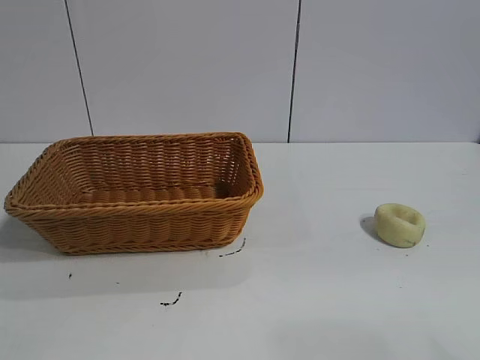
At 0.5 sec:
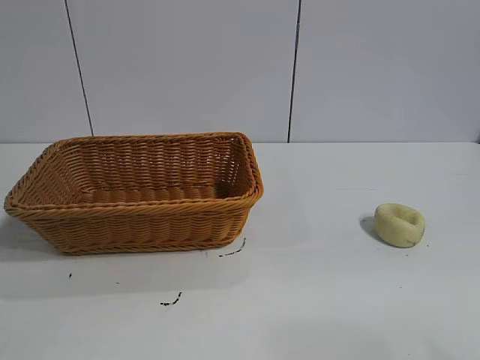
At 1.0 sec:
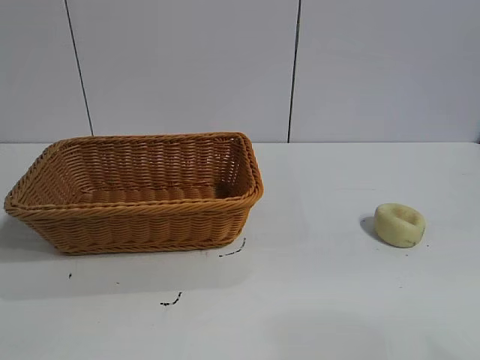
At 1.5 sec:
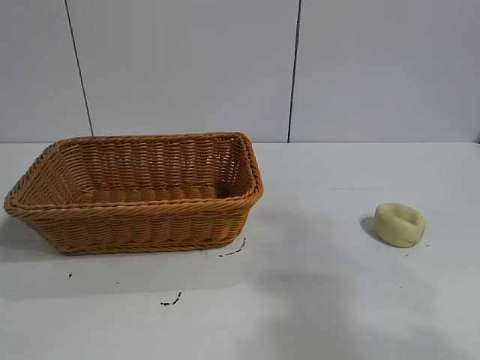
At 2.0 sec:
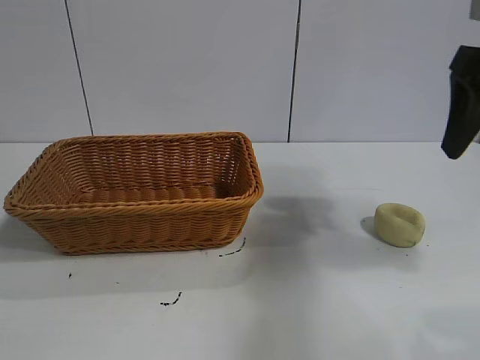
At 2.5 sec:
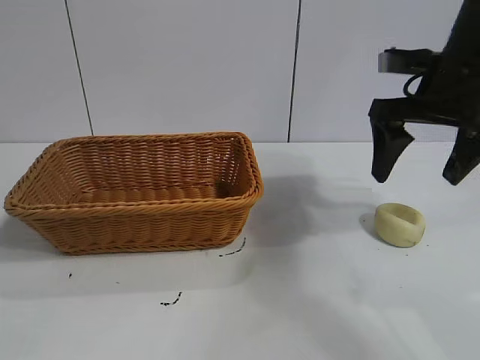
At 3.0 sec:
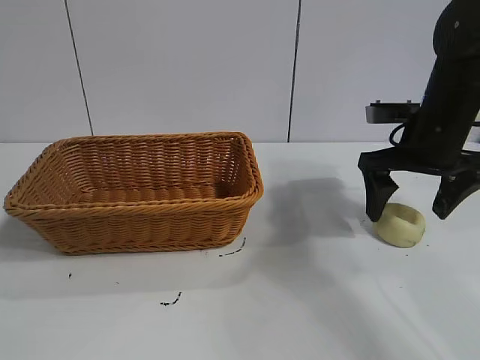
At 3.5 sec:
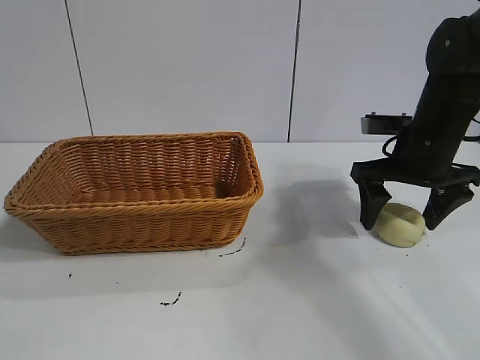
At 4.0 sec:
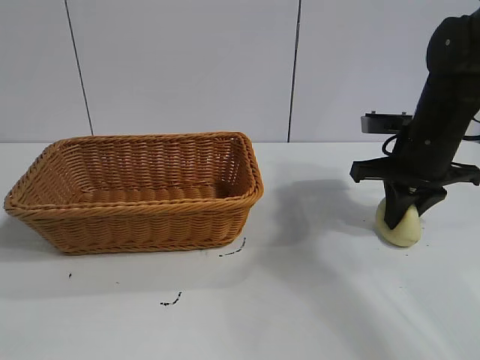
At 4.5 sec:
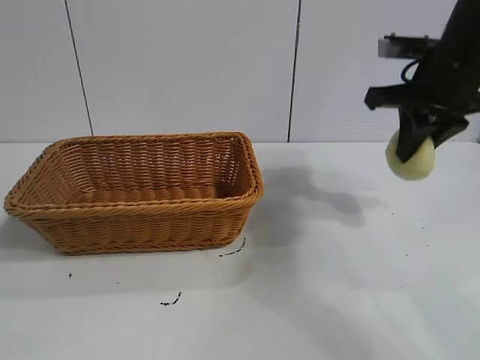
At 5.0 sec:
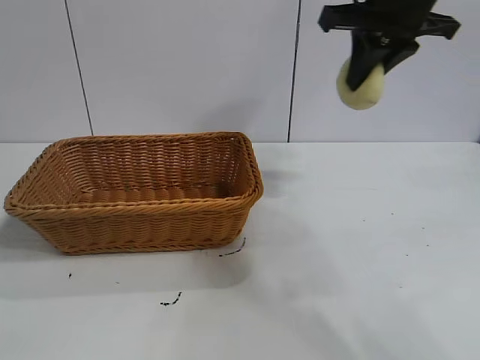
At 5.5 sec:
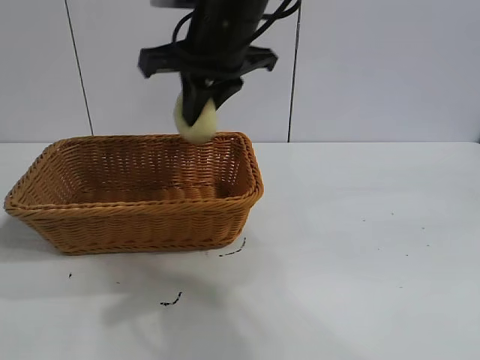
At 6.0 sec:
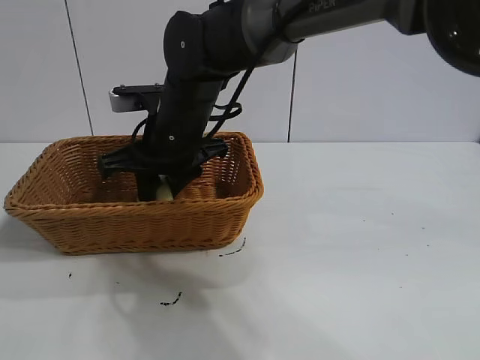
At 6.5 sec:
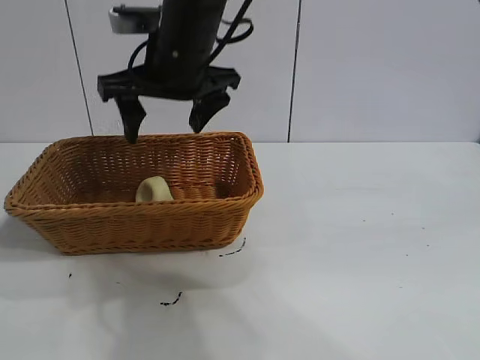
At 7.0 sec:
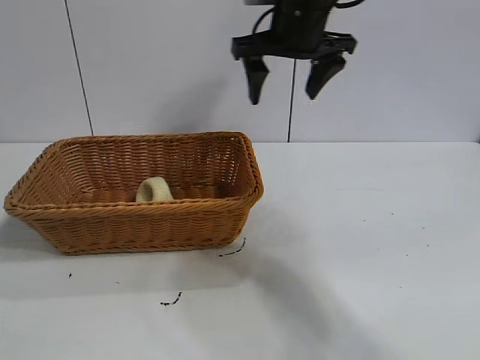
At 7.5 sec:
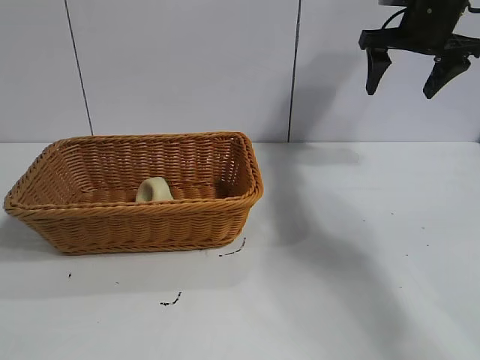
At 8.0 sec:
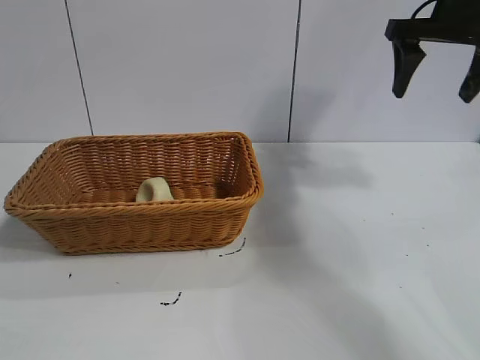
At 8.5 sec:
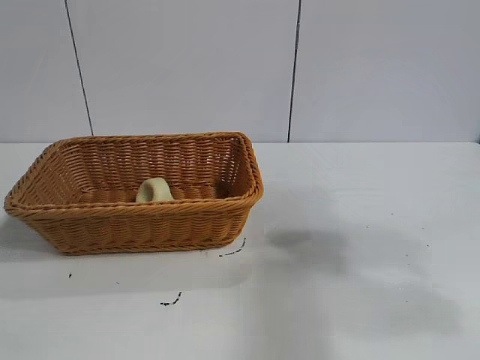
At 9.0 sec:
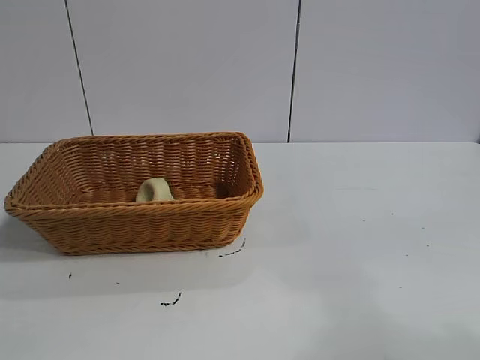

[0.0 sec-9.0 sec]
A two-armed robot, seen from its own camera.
Task of the whole recording: pick up the egg yolk pastry and put it into the basket.
Step, 1.0 sec to 4.0 sec: Grasp egg yolk pastry with right gripper.
Step, 4.5 sec to 6.0 sec: Place the egg yolk pastry in the basket with right gripper.
